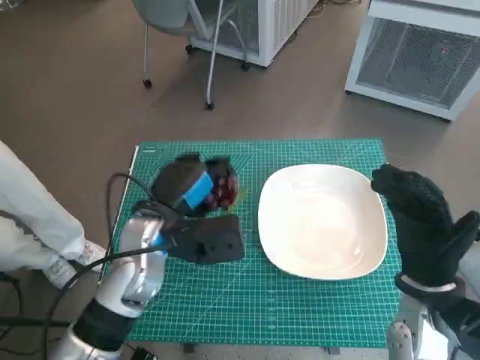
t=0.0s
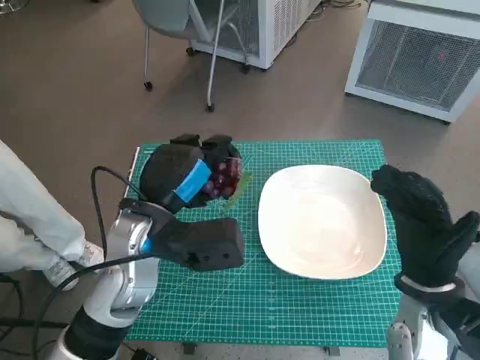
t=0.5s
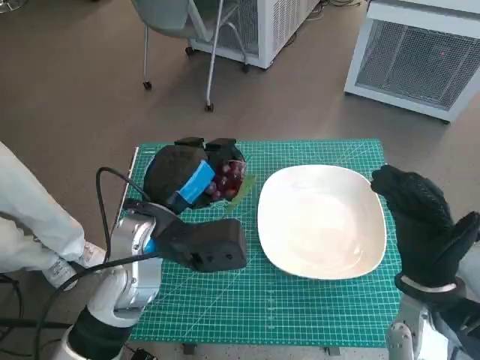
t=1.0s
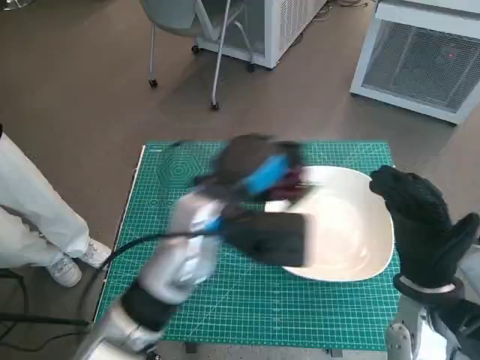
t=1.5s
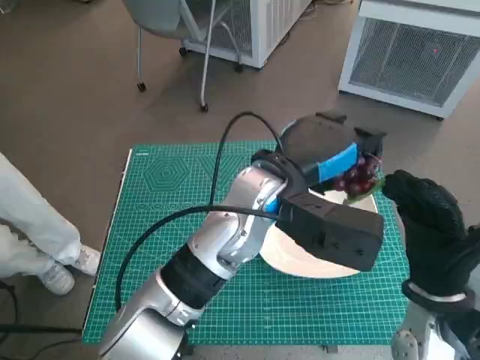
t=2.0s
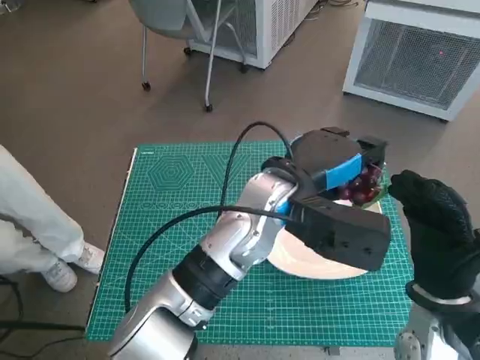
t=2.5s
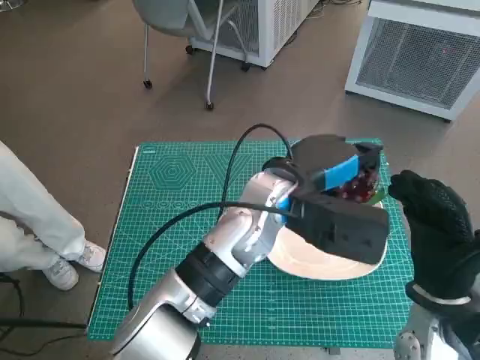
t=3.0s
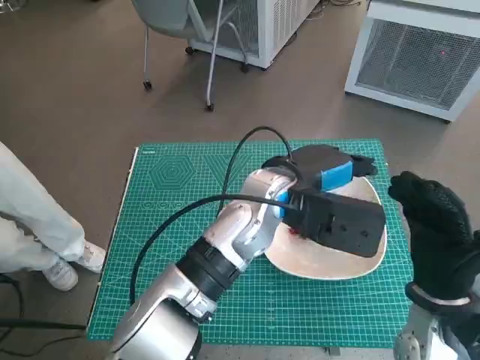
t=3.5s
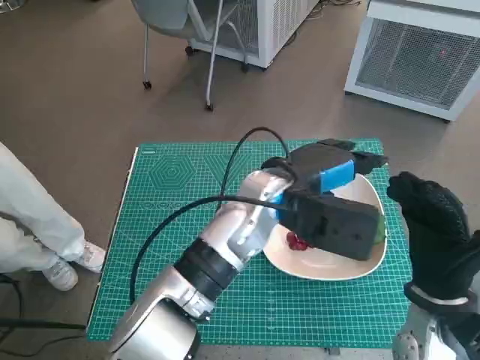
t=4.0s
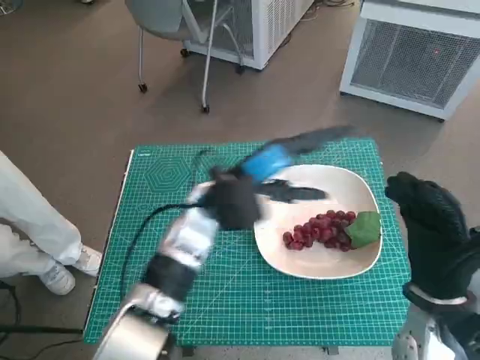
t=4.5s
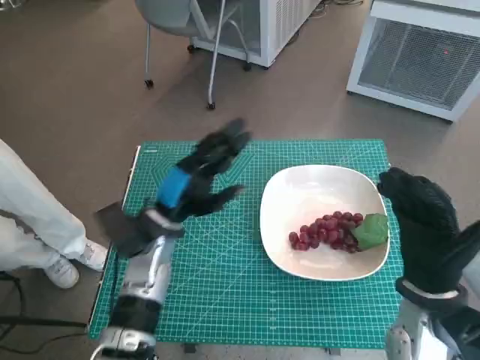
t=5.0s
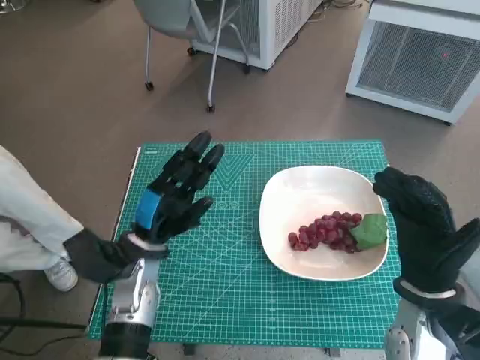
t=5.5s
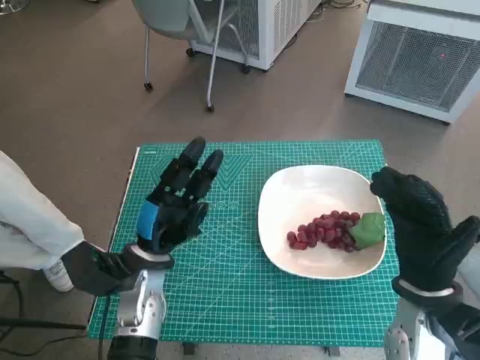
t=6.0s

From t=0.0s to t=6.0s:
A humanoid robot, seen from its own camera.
Task of the whole recording: Pick up the grapes and put them on the plate.
Step, from t=0.0s to t=3.5s: Place the grapes in the plate with left hand.
From t=0.0s to t=2.0s: The left hand moves to the right and upward, some 15 cm.
From t=4.0s to t=6.0s: The left hand travels to the left and downward by approximately 20 cm.
